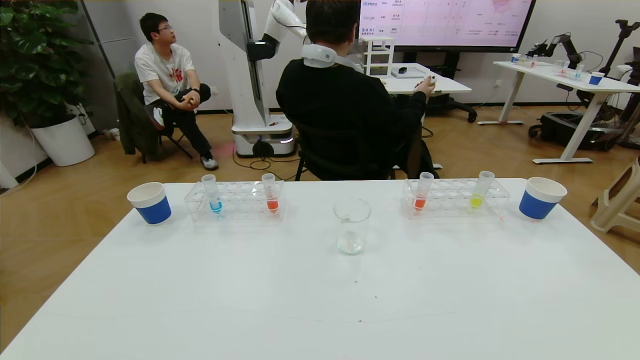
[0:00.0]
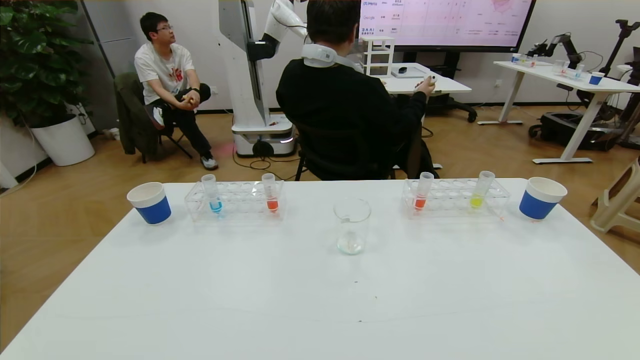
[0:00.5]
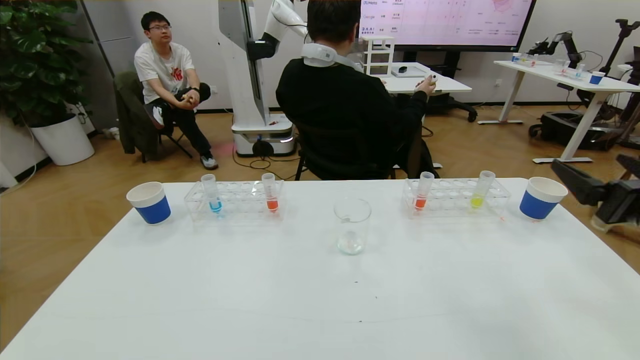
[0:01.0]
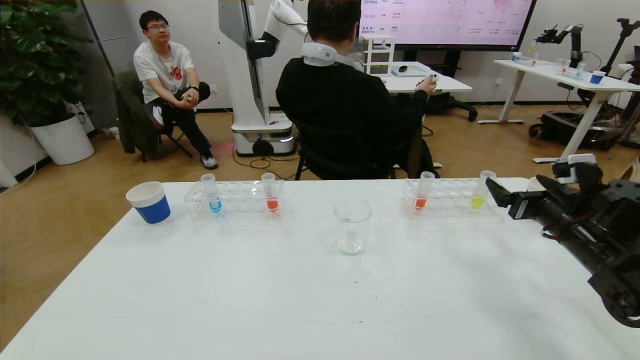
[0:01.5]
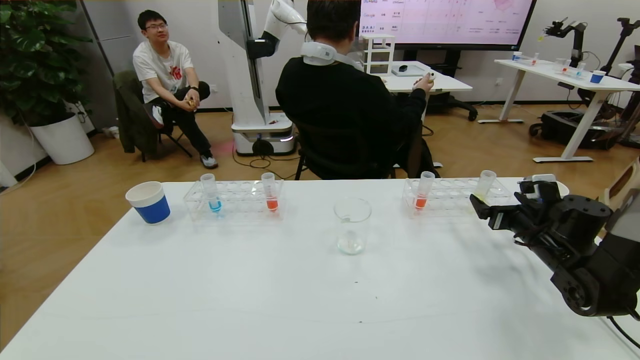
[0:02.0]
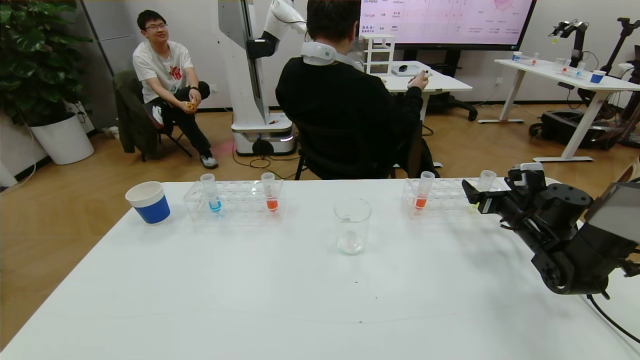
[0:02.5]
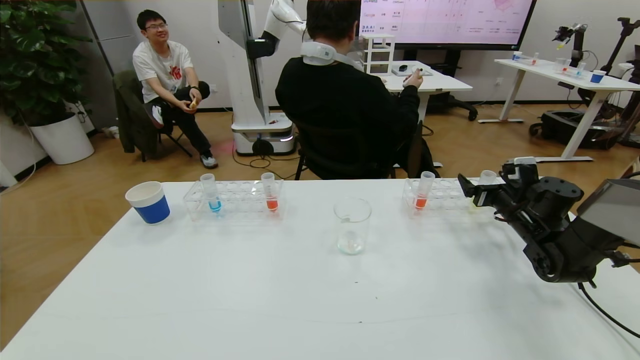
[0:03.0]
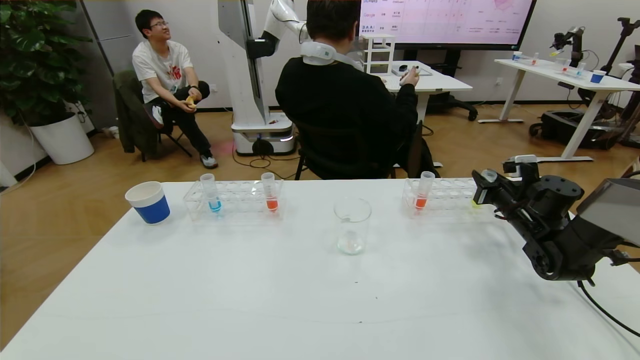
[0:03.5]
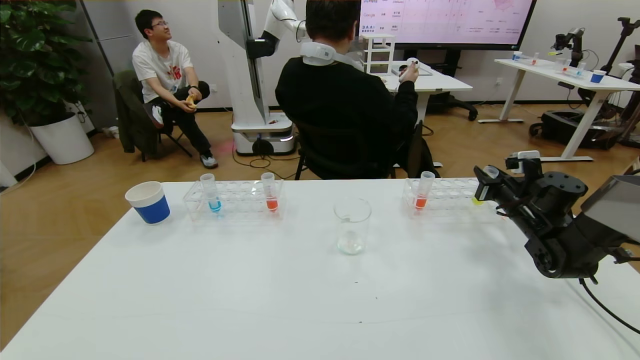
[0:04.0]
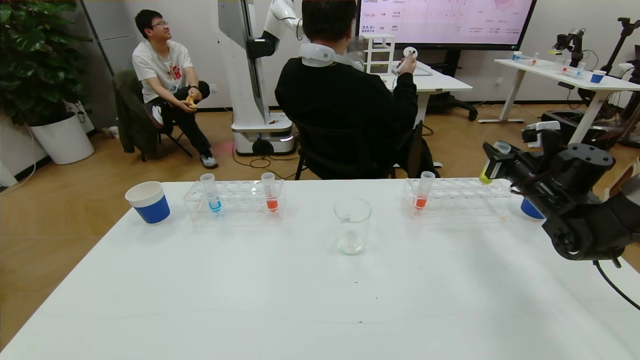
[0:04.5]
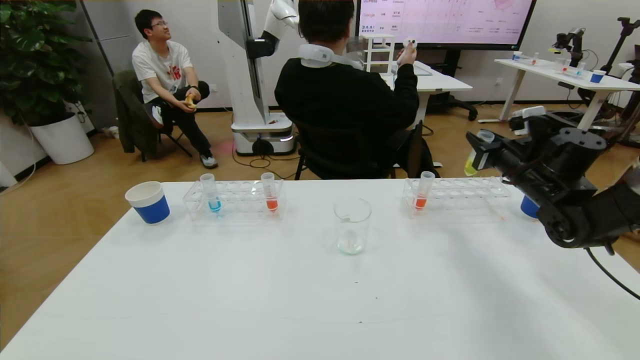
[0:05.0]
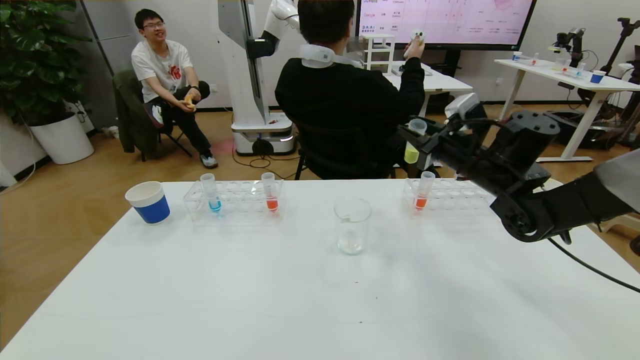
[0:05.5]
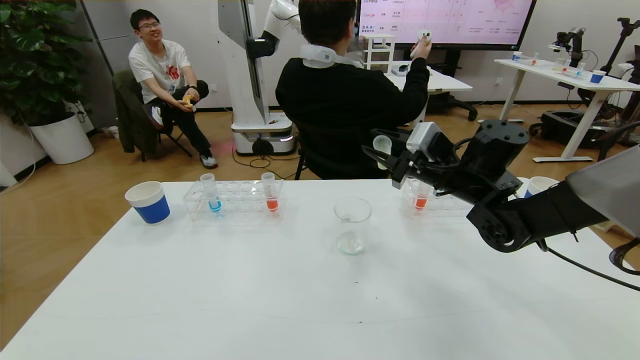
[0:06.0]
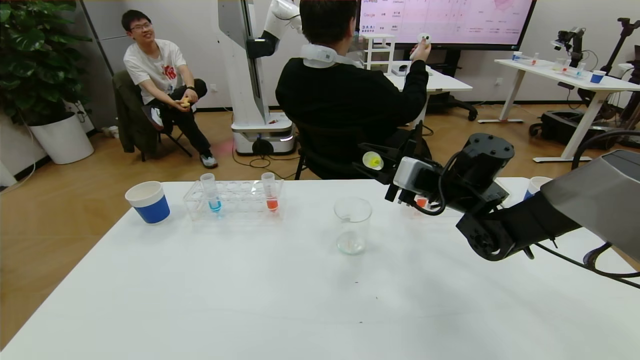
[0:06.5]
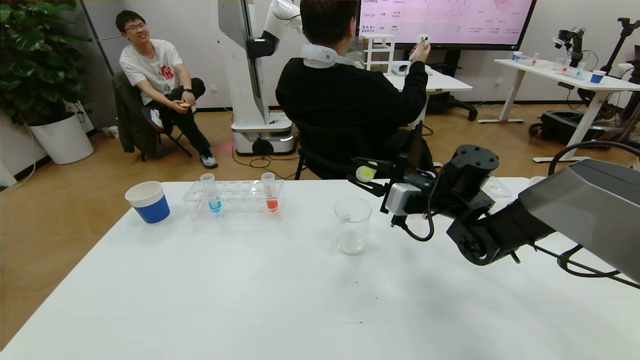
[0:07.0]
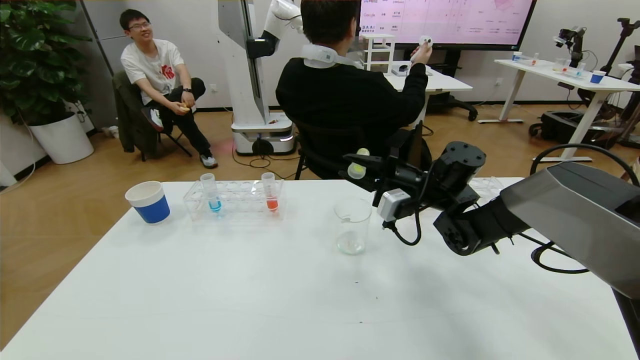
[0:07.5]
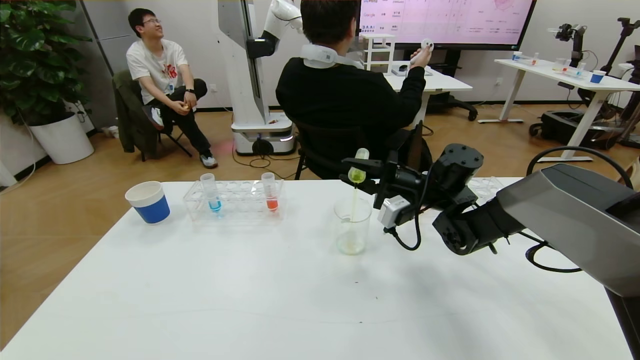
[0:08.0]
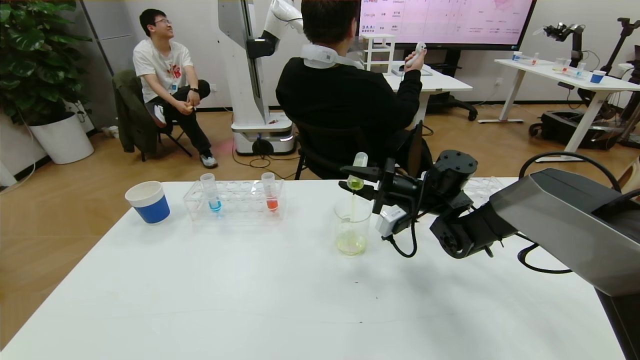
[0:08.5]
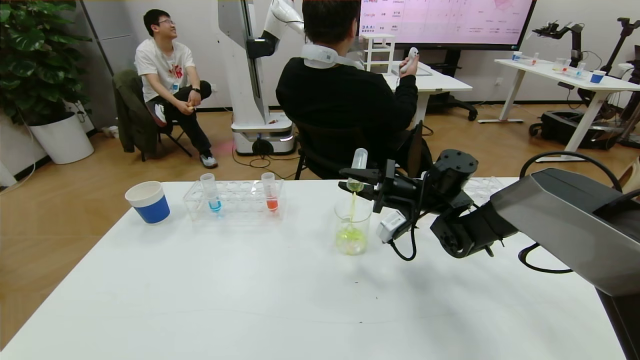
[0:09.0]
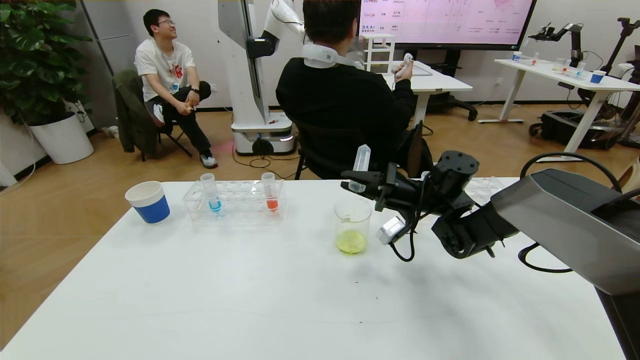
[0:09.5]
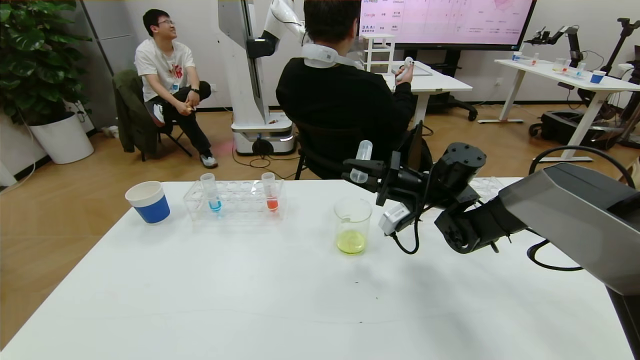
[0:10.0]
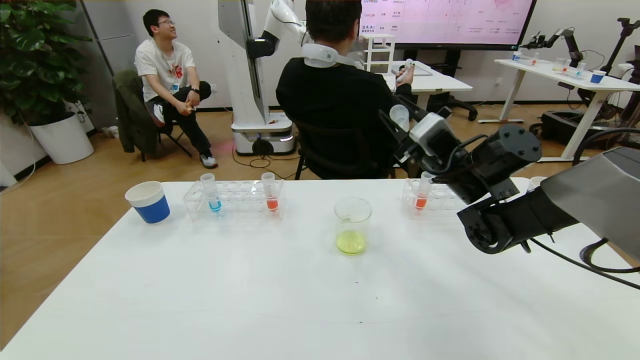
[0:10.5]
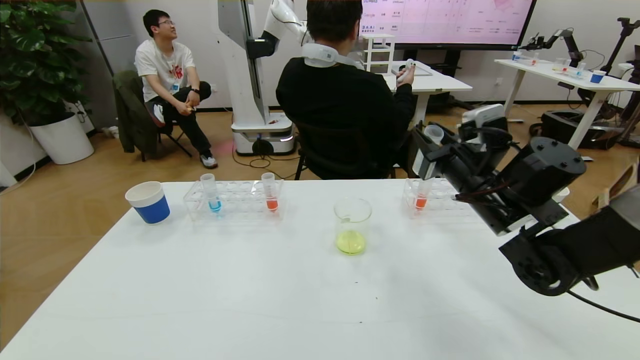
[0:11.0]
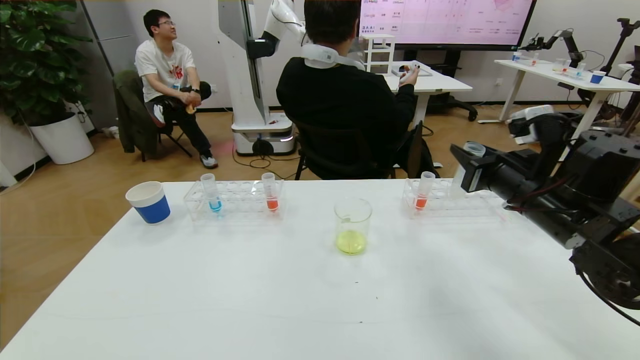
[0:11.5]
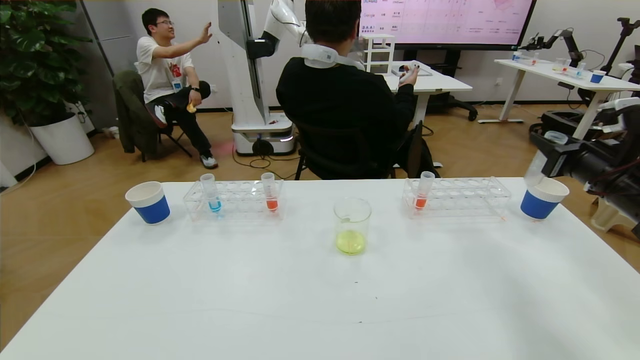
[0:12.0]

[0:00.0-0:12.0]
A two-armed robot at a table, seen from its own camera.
Task of the whole recording: pick up the test tube with yellow pigment and the test tube with blue pigment by grippers and pour them into the beaker.
0:00.0 to 0:02.0: The right gripper is displaced forward by roughly 40 cm.
0:02.0 to 0:04.0: The right gripper goes about 5 cm forward, and closes its fingers.
0:04.0 to 0:06.0: The right gripper shifts about 20 cm to the left and upward.
0:06.0 to 0:08.0: The right gripper is displaced downward by about 5 cm.
0:10.0 to 0:12.0: The right gripper is displaced to the right and backward by about 25 cm.

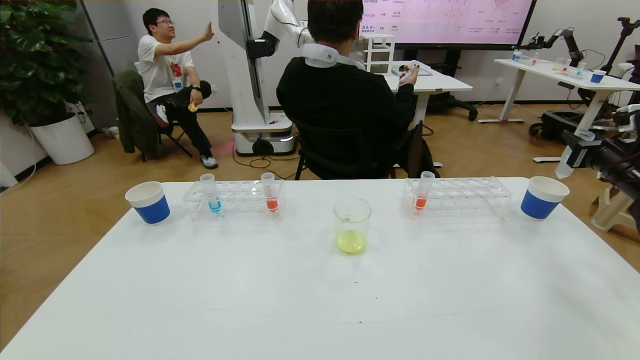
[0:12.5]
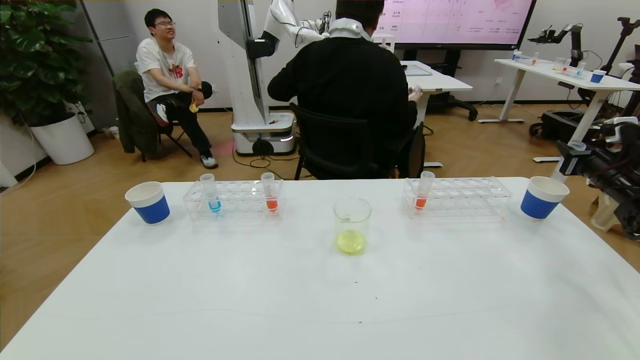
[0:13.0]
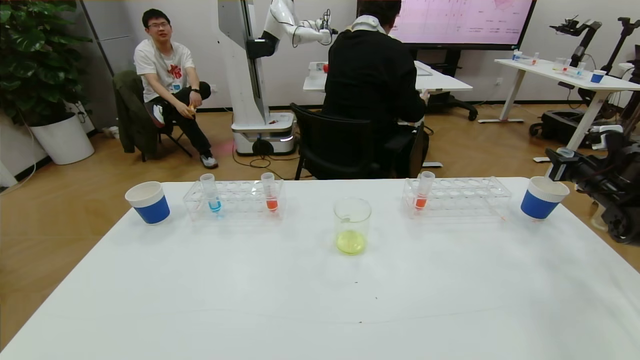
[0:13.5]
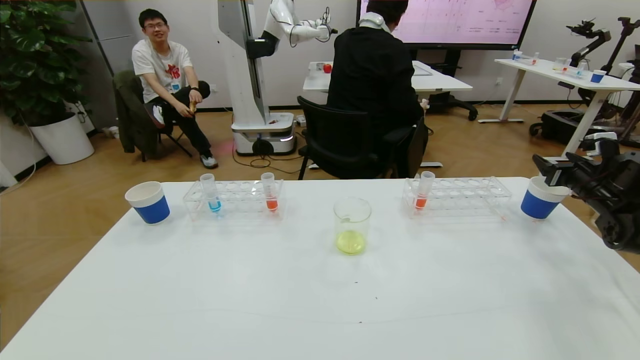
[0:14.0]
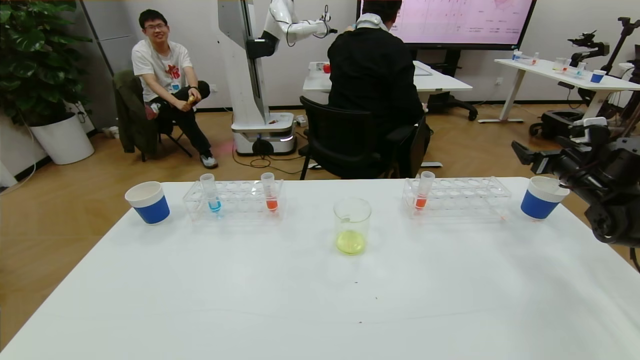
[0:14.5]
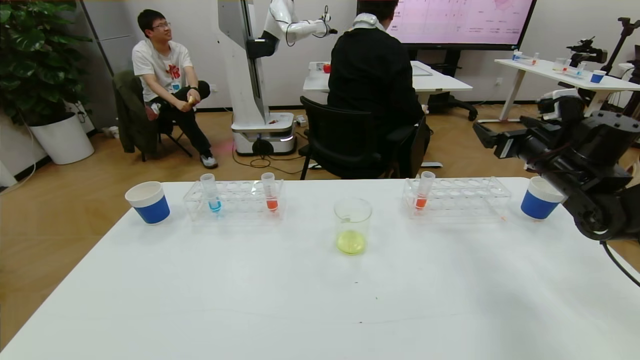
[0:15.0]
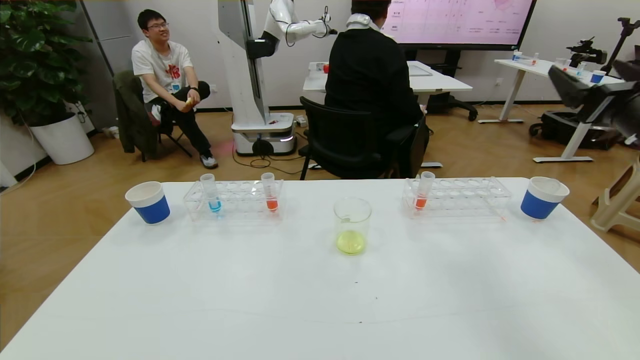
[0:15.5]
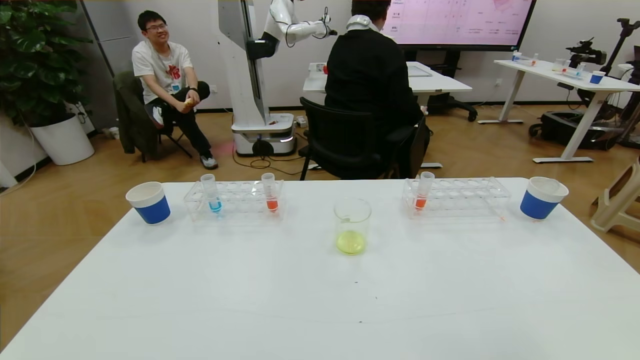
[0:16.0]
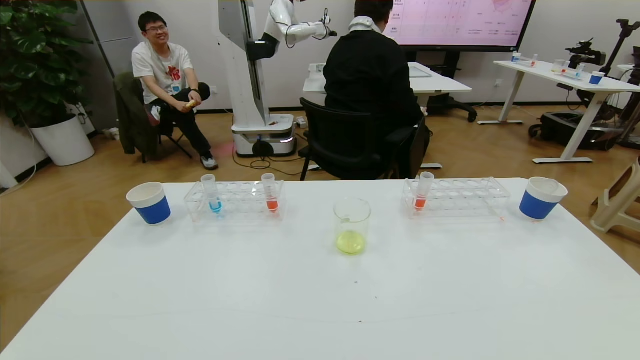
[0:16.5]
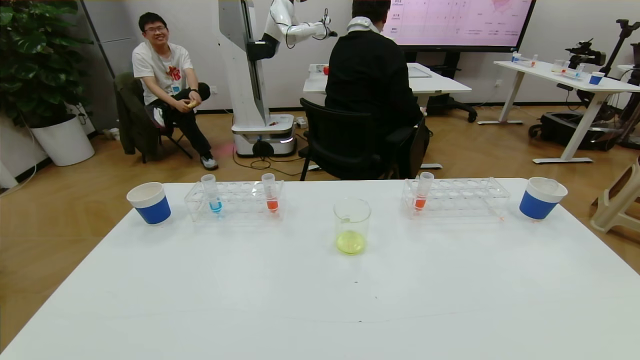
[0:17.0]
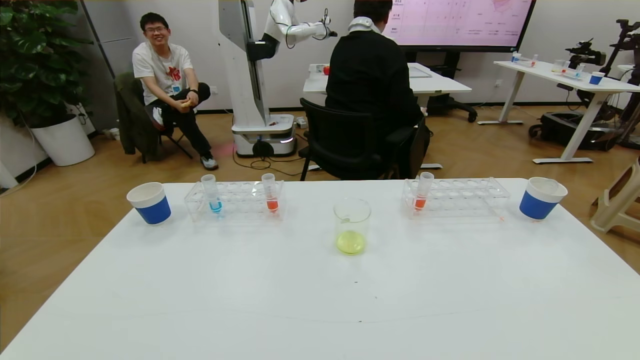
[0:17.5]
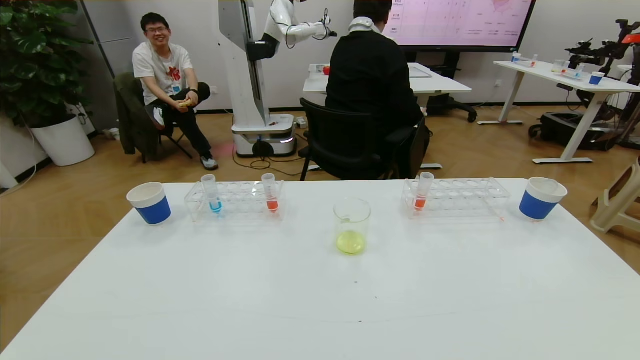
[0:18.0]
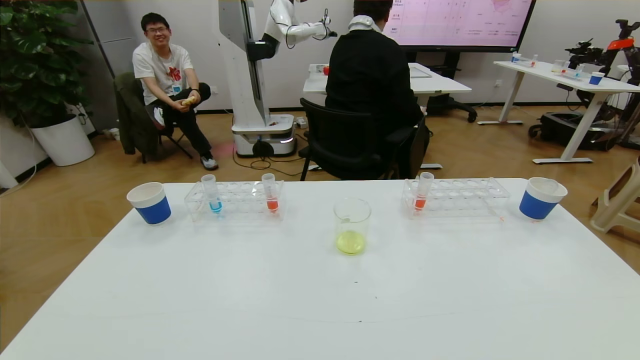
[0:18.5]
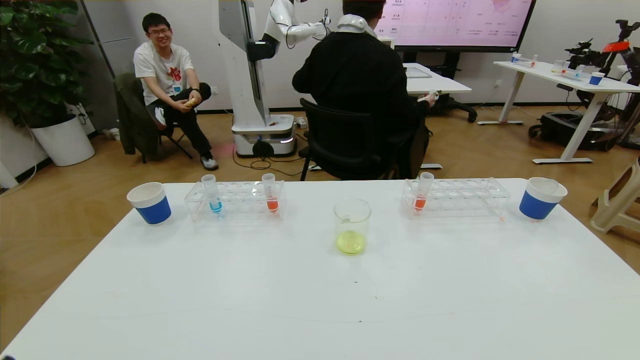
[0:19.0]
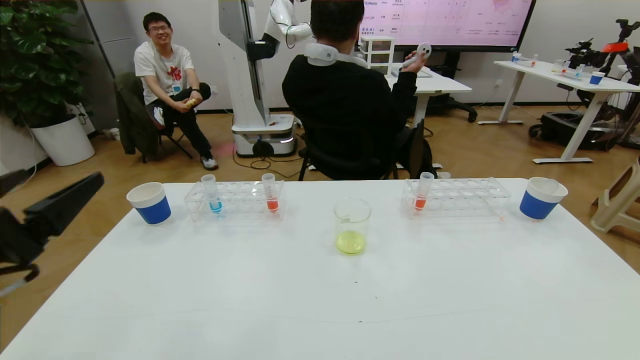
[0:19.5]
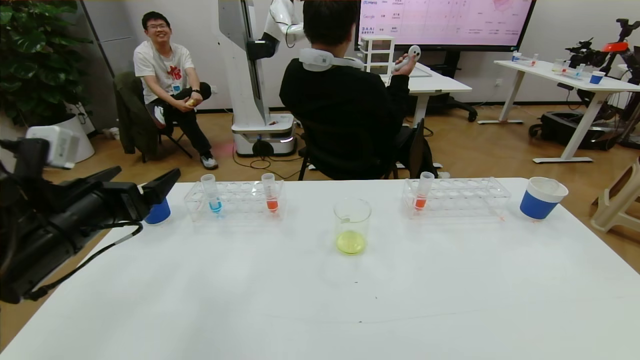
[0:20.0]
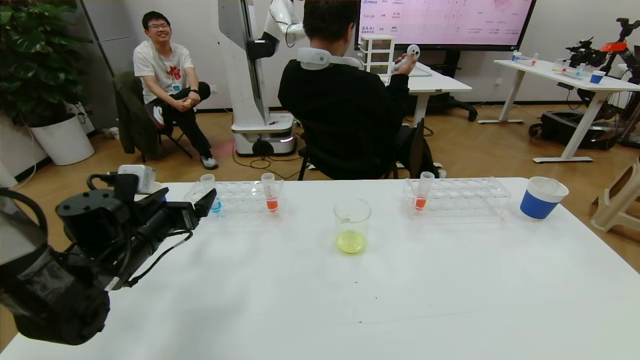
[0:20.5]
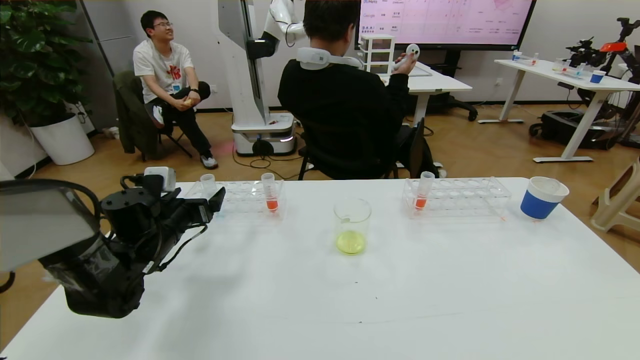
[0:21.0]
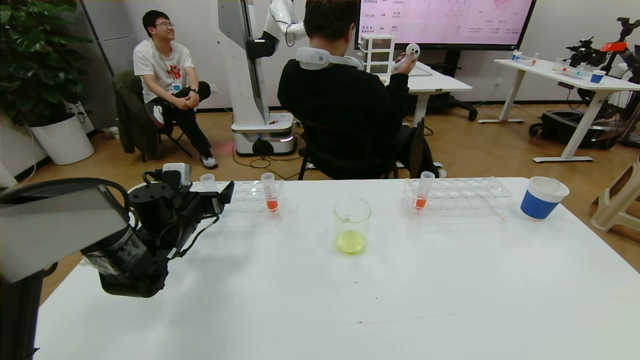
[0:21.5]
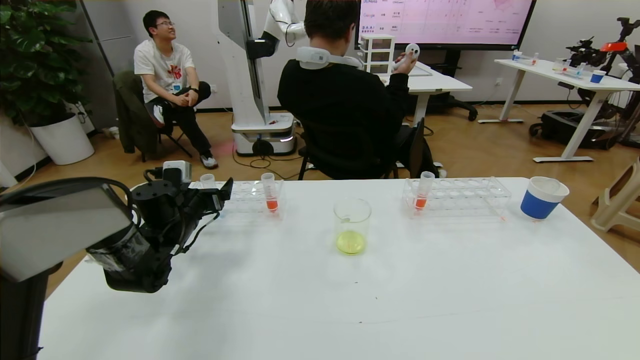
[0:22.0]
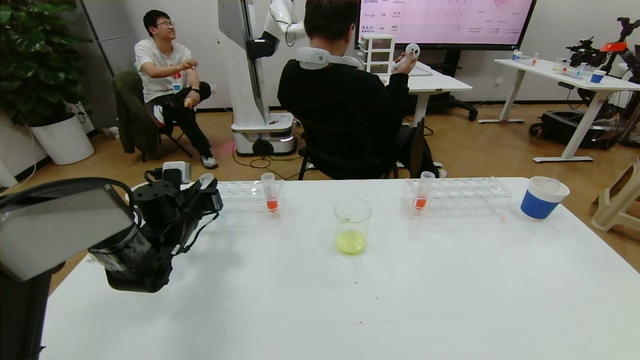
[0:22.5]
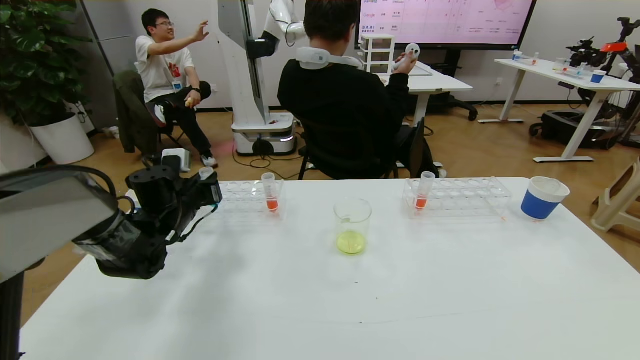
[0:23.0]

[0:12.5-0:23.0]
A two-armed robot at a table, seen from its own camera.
Task of the whole recording: pick up the test tube with yellow pigment and the test tube with blue pigment by grippers and pour them into the beaker.
Step, 0:12.5 to 0:18.0: Pour the yellow reagent into the graduated cylinder and place the test tube into the paper cup.
0:12.5 to 0:14.5: The right gripper ends up roughly 5 cm from where it was, and opens.
0:14.5 to 0:16.5: The right gripper is displaced backward by about 40 cm.
0:16.5 to 0:19.0: The right gripper moves downward, approximately 15 cm, while the left gripper shifts approximately 10 cm upward.
0:19.0 to 0:21.0: The left gripper goes some 35 cm forward.
0:21.0 to 0:23.0: The left gripper ends up about 5 cm from where it was, and closes.
